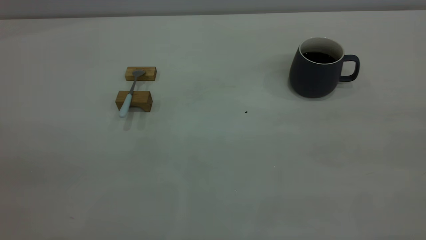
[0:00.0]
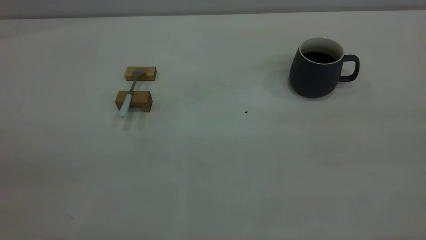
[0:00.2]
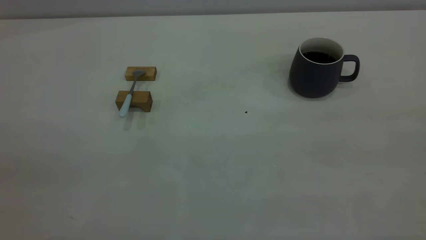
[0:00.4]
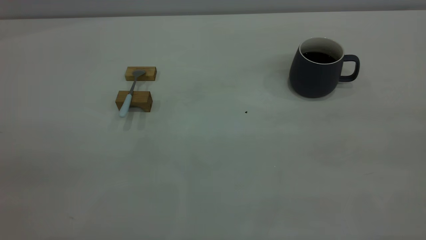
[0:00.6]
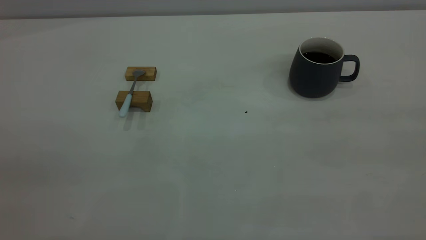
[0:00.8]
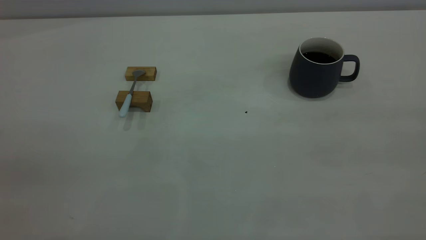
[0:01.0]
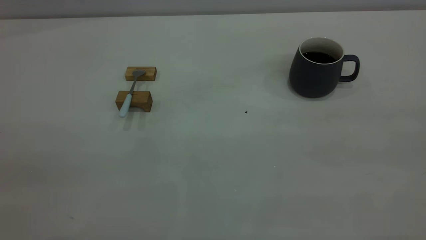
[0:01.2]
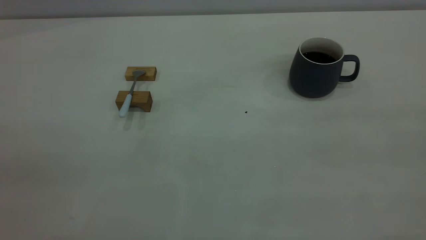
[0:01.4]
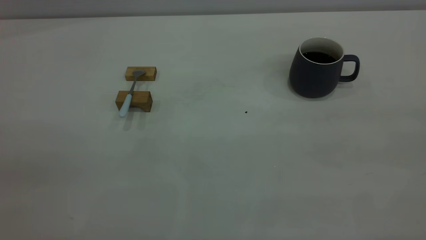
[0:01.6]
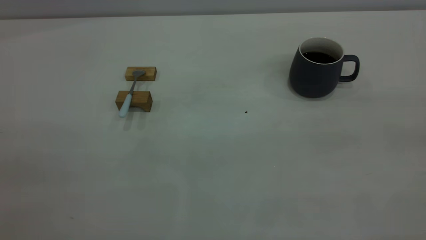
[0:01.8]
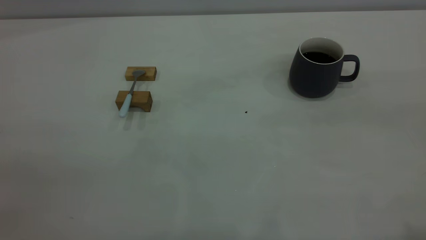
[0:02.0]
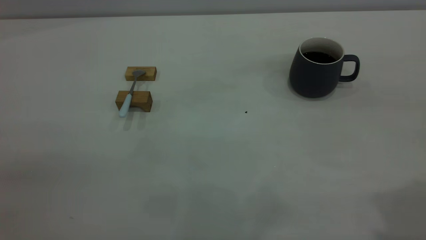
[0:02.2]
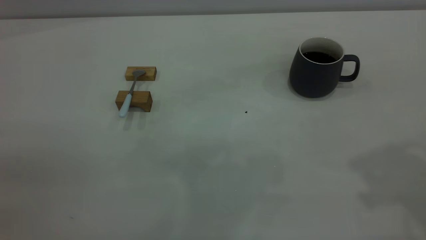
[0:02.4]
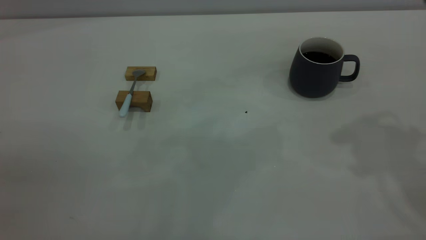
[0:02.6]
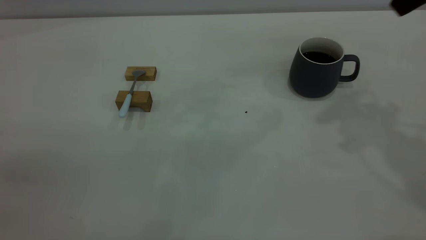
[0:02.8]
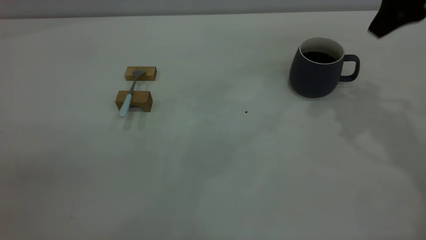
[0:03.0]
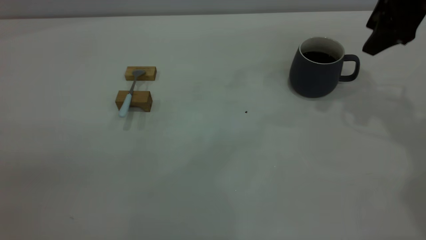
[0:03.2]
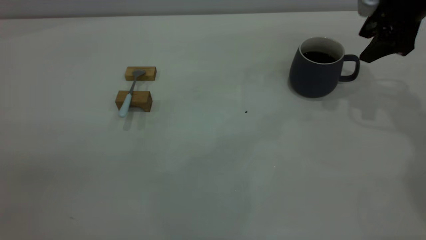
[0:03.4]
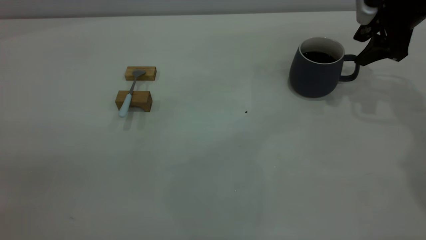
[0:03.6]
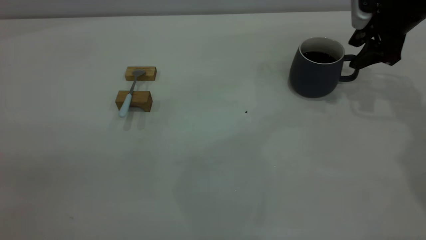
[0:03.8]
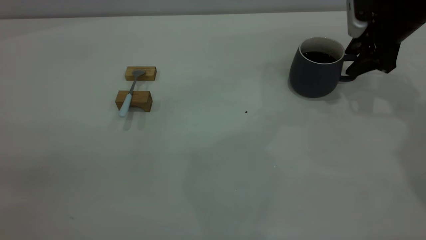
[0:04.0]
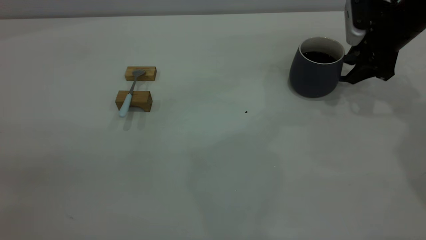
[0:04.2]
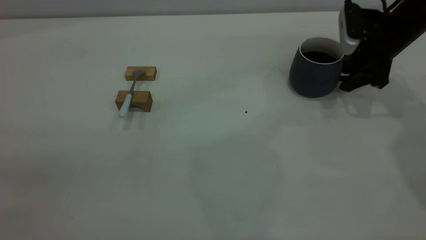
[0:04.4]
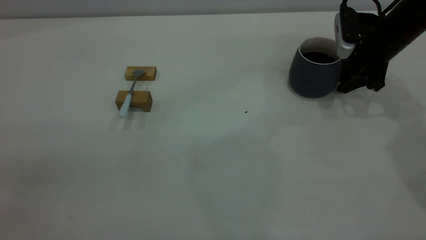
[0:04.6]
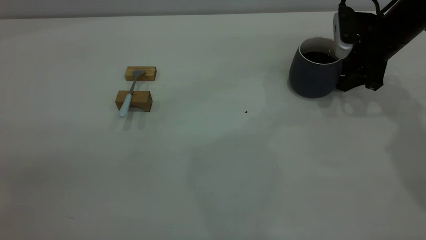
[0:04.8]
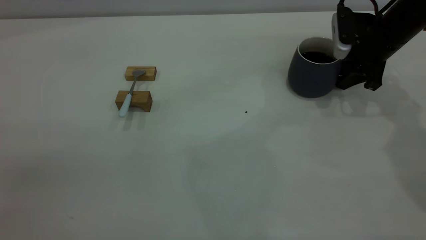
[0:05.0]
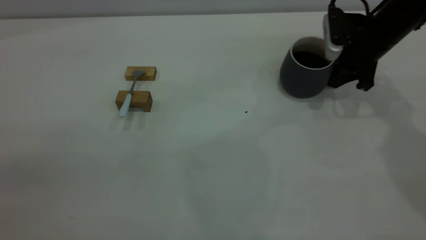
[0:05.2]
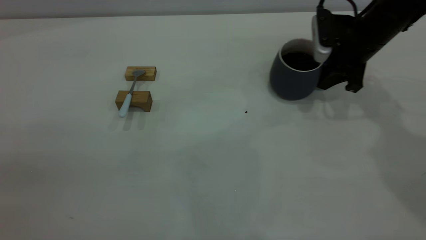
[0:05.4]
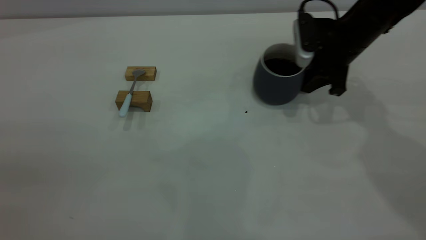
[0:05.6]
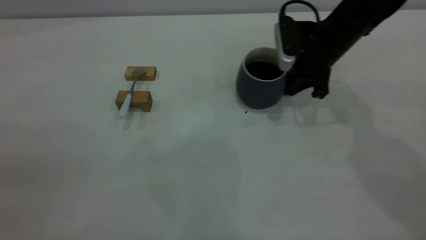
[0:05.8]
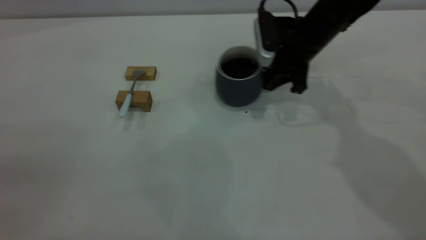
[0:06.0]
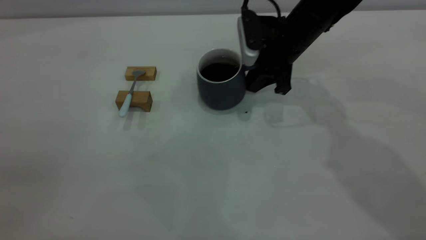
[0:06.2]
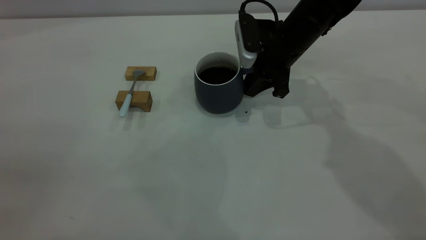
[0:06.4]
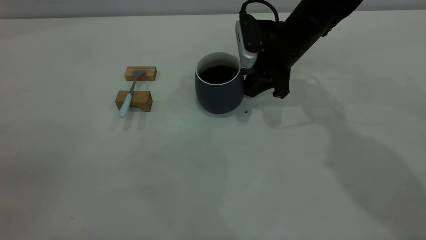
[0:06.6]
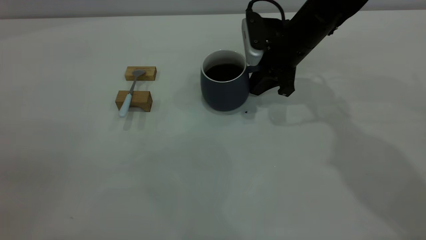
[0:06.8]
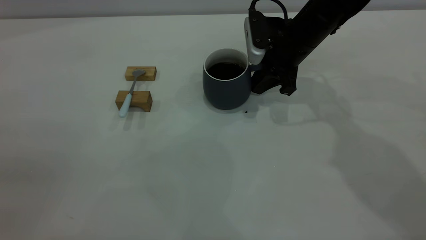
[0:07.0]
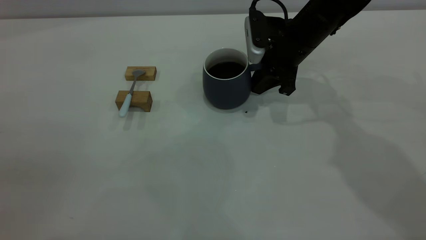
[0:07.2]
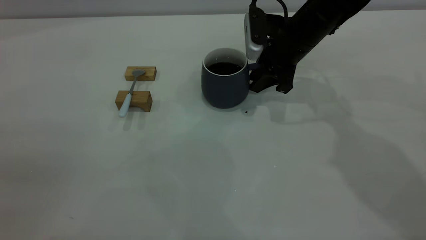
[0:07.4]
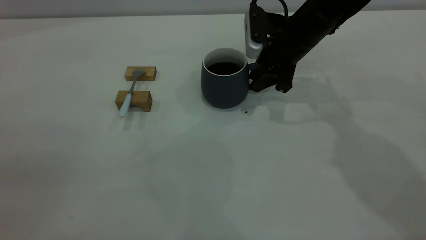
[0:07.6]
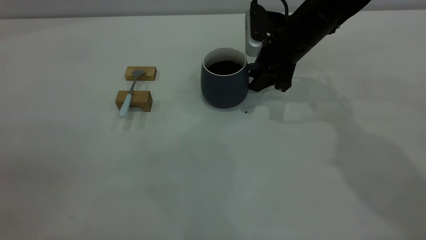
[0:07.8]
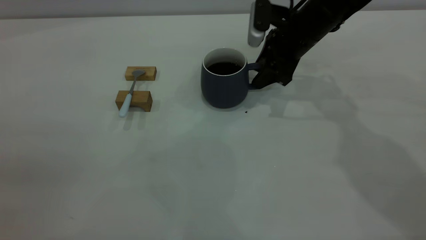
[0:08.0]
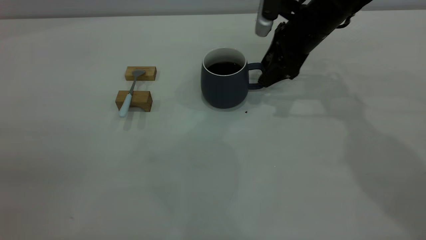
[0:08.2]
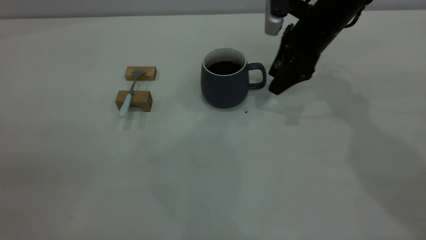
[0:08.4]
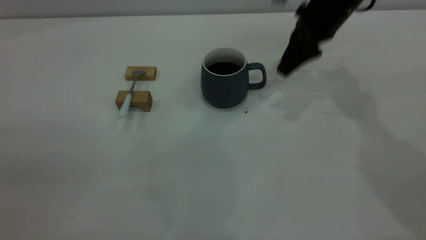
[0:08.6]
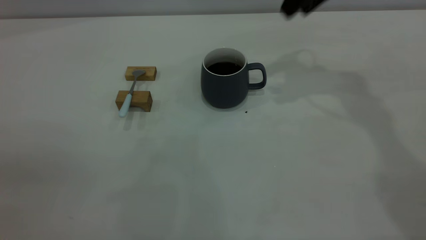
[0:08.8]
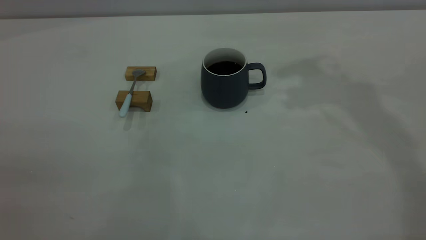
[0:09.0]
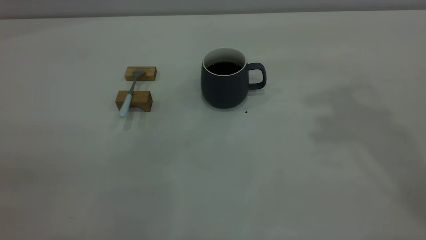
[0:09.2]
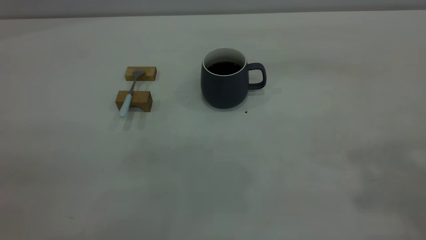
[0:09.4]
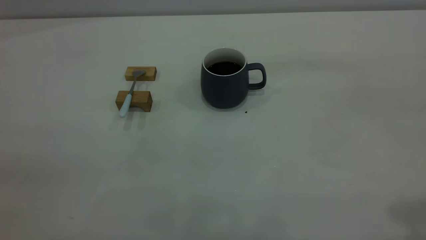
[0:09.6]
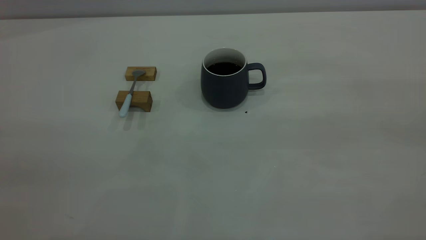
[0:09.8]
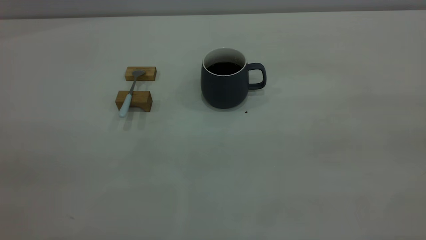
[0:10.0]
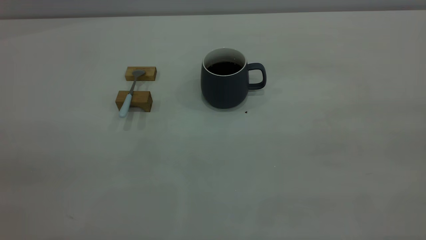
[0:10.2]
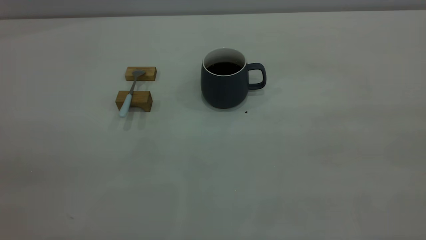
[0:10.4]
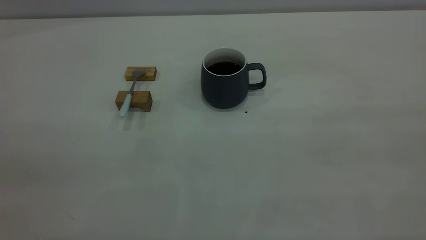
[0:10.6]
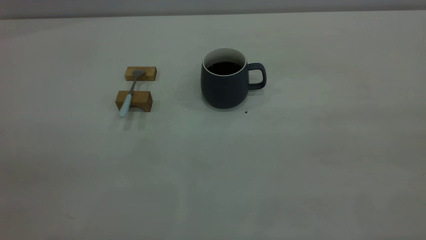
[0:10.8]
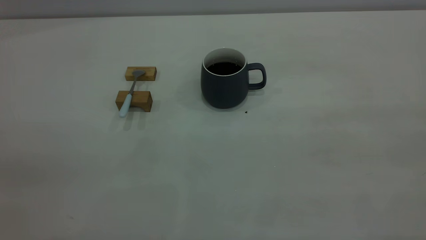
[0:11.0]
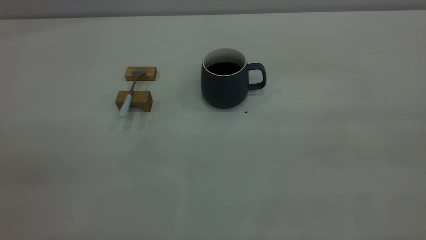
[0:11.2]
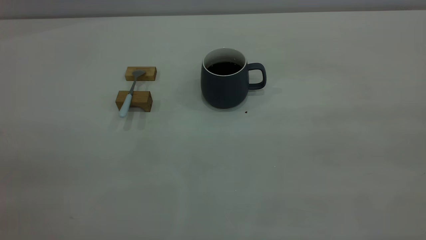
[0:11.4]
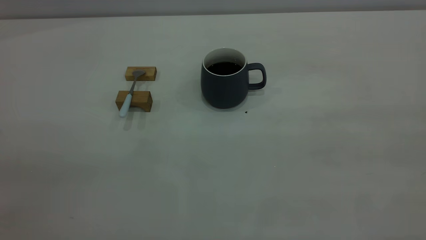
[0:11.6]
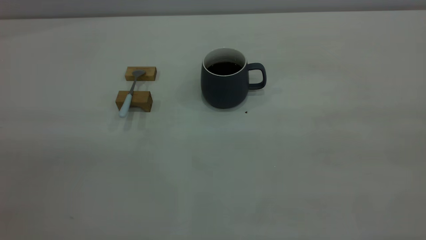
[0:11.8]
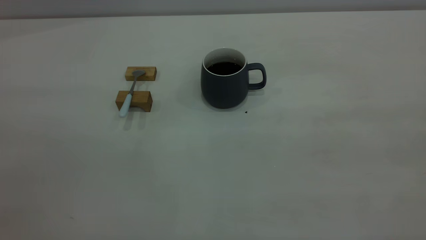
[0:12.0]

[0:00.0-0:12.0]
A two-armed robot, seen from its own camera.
Step, 2.6 to 8.0 s: Move the cup in the center of the table with right gripper.
0.0 to 1.6 s: Neither gripper changes place.
1.6 to 3.0 s: The right gripper moves forward, about 35 cm.
3.0 to 4.4 s: The right gripper moves downward and forward, some 15 cm.
4.4 to 6.0 s: The right gripper moves to the left, about 15 cm, and closes its fingers.
6.0 to 7.6 s: The grippers move only a little.
7.6 to 9.0 s: The right gripper moves upward, approximately 25 cm, and opens.

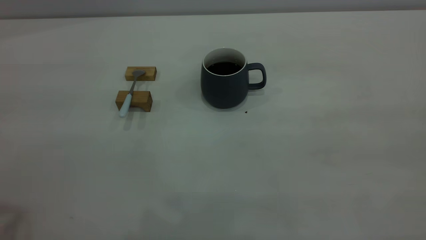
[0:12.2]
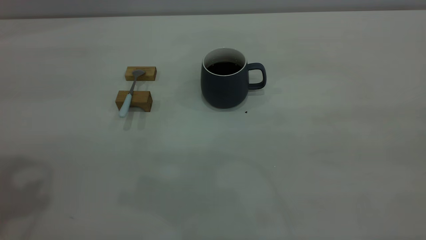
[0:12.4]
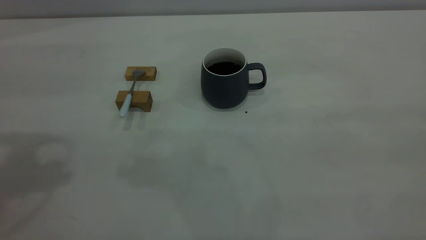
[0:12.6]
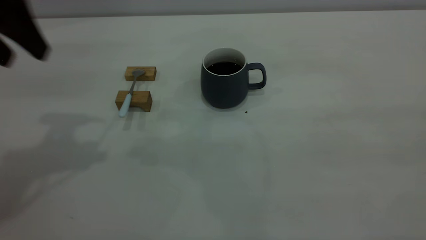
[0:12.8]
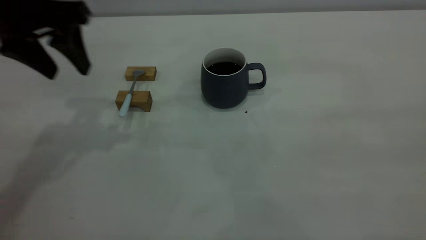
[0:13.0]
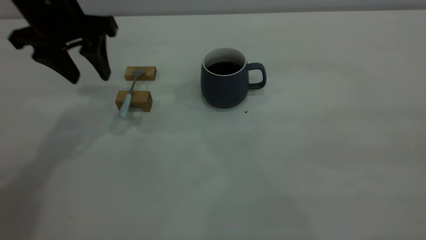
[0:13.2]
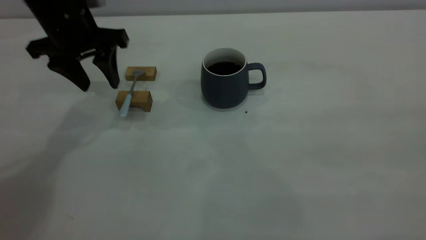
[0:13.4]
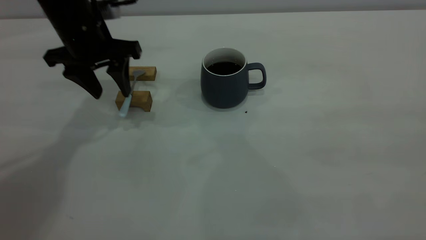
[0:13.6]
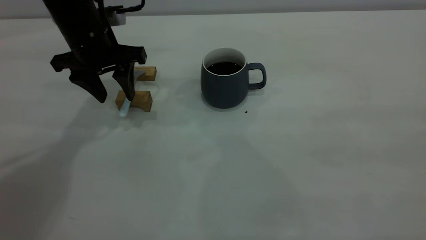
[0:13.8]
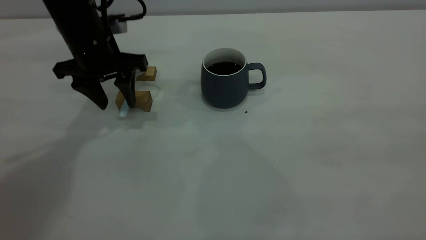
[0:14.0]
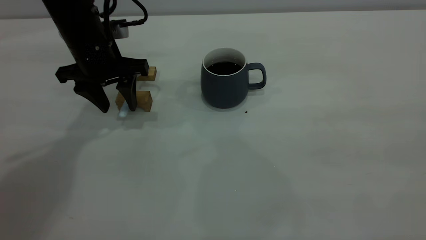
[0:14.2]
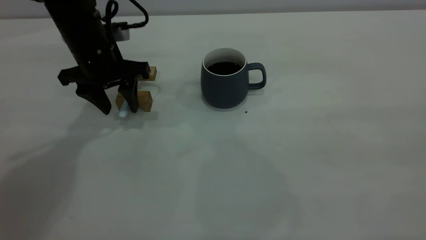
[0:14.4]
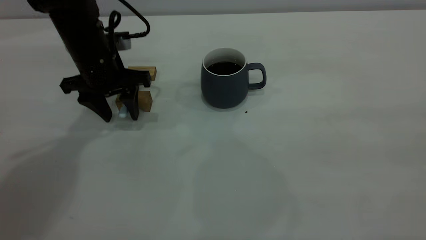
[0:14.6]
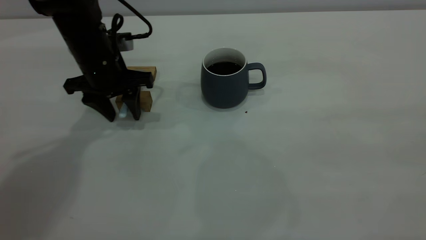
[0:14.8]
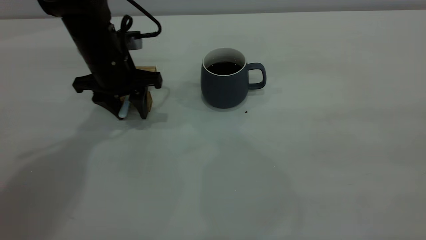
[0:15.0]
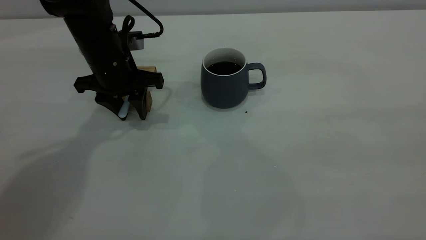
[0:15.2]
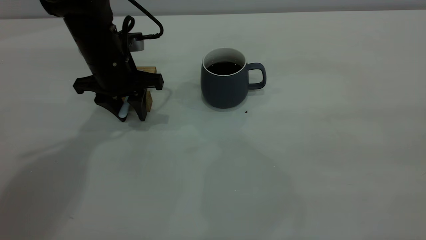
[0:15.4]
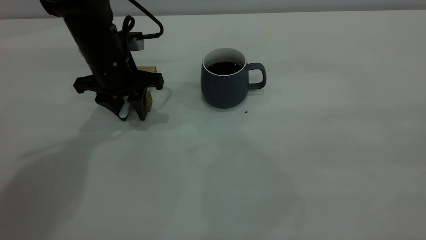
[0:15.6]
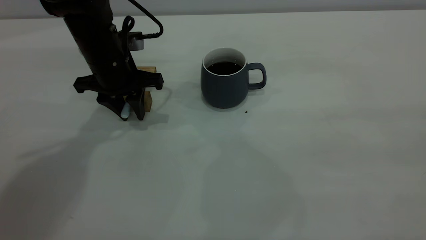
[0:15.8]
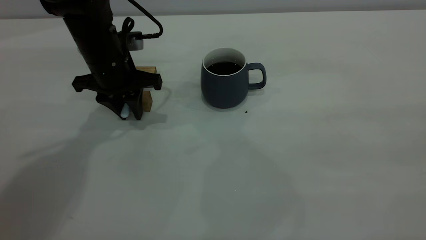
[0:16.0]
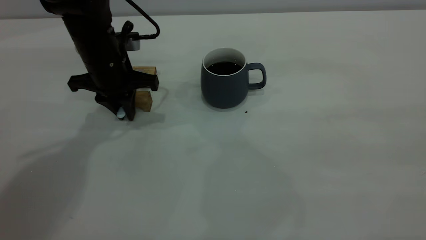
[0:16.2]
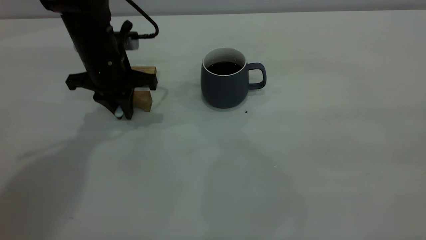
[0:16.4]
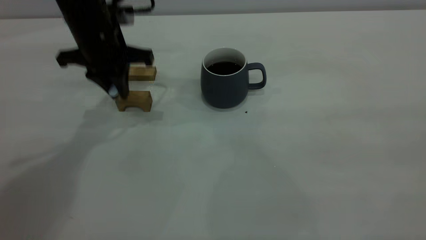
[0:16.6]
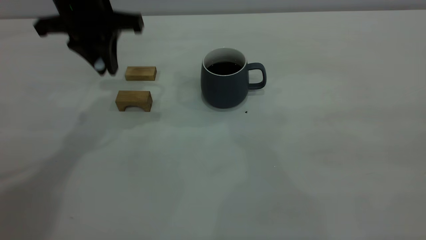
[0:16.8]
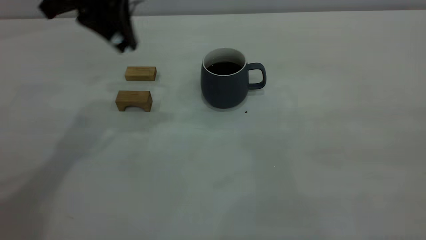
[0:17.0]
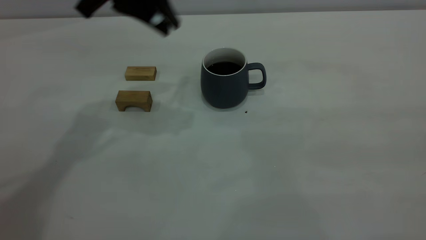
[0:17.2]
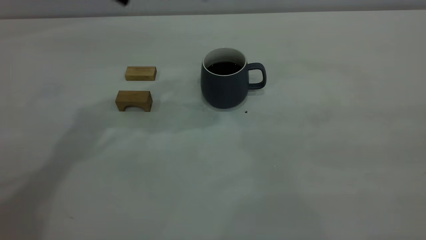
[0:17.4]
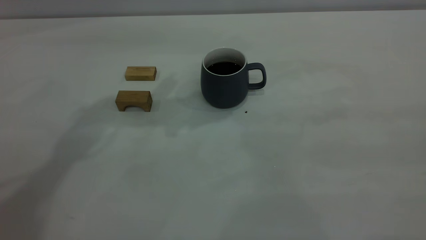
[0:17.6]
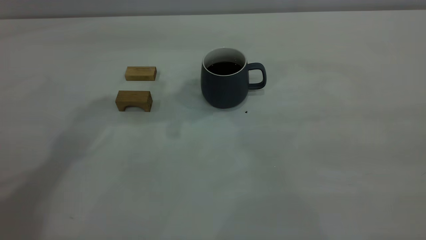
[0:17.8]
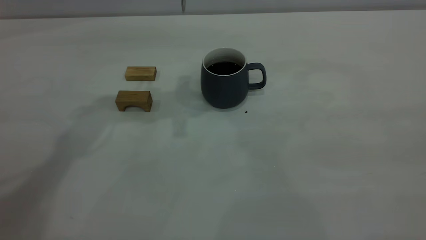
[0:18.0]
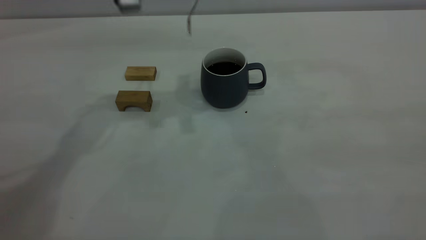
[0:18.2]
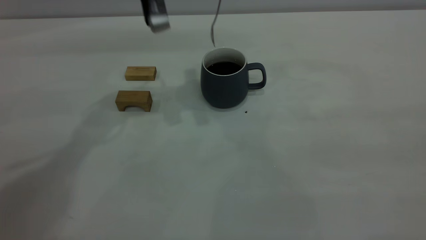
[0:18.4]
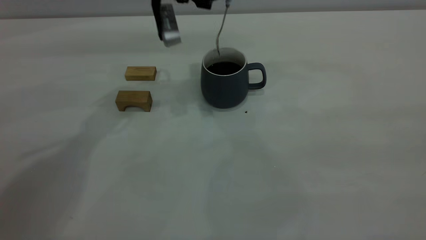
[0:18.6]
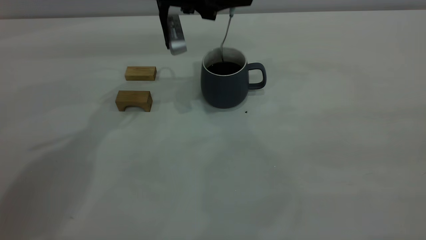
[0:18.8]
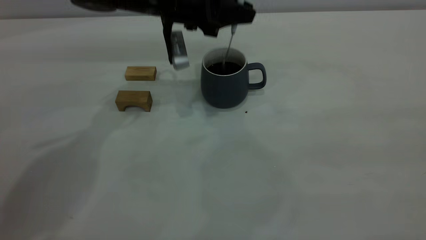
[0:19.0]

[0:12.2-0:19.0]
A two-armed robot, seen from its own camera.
Step, 12.2 to 16.2 s: Grasp the spoon with left gripper.
12.2 to 13.6 s: The left gripper shifts about 35 cm forward, downward and to the right.
13.6 to 15.0 s: The left gripper moves downward, about 5 cm.
15.0 to 16.2 s: The left gripper closes its fingers.
16.2 to 17.6 s: The left gripper shifts approximately 20 cm upward.
17.6 to 19.0 s: The left gripper is displaced downward by approximately 15 cm.
